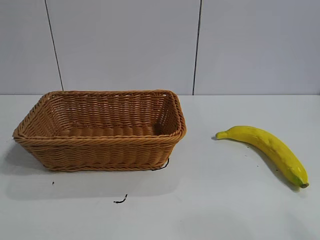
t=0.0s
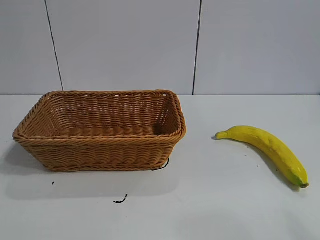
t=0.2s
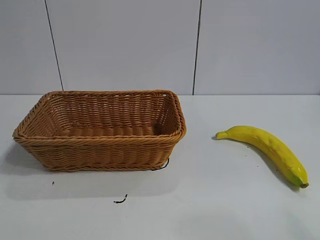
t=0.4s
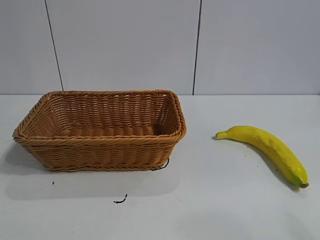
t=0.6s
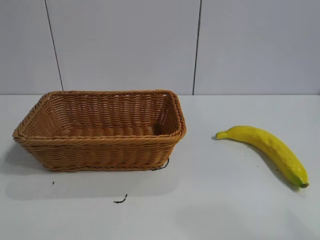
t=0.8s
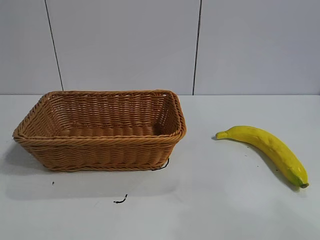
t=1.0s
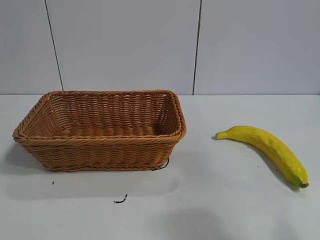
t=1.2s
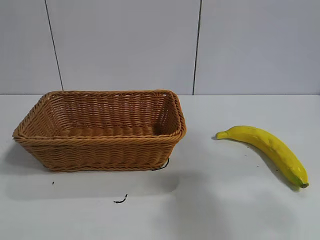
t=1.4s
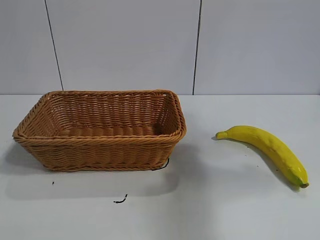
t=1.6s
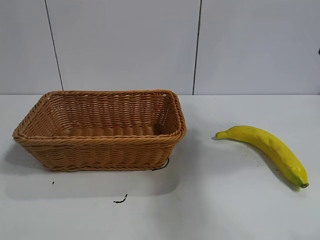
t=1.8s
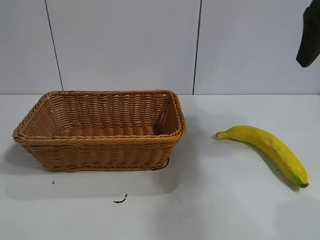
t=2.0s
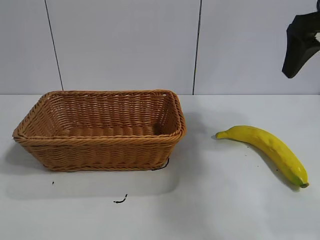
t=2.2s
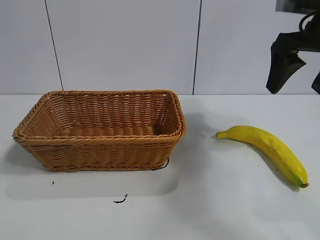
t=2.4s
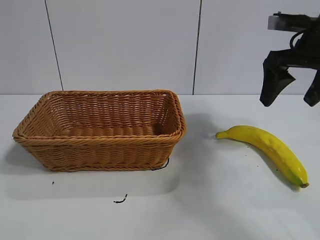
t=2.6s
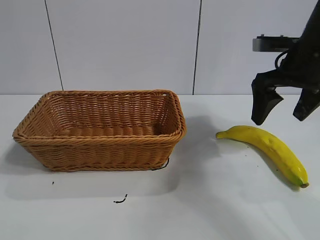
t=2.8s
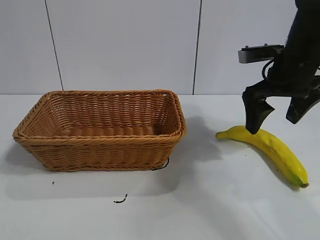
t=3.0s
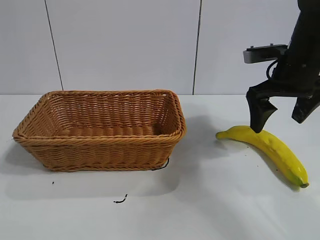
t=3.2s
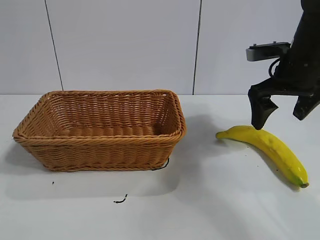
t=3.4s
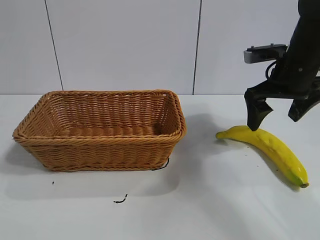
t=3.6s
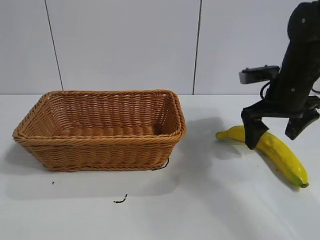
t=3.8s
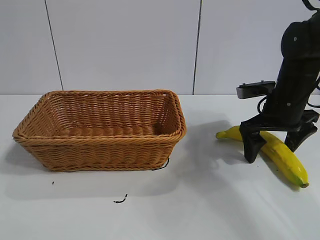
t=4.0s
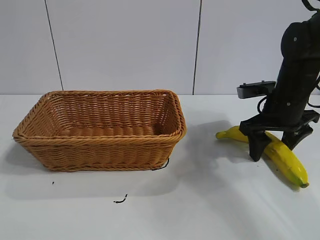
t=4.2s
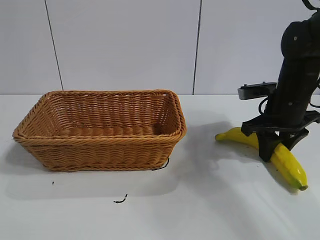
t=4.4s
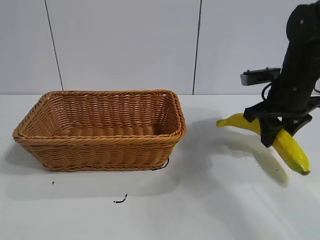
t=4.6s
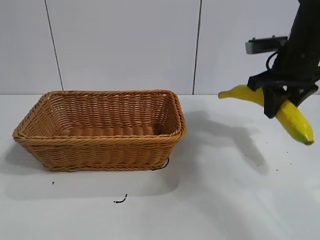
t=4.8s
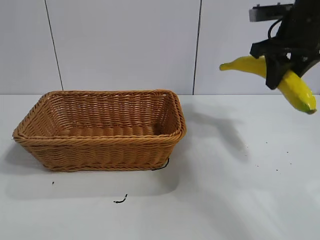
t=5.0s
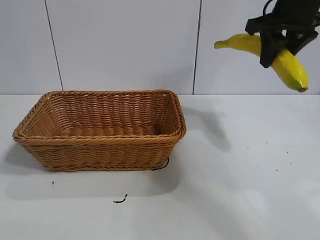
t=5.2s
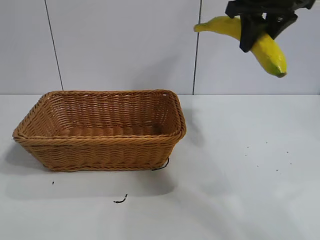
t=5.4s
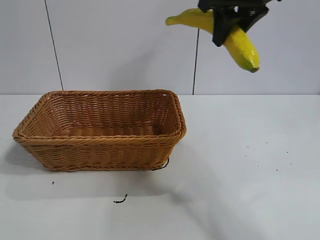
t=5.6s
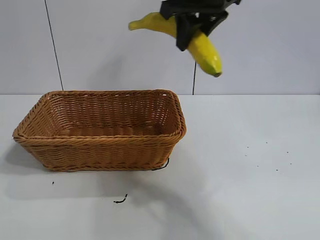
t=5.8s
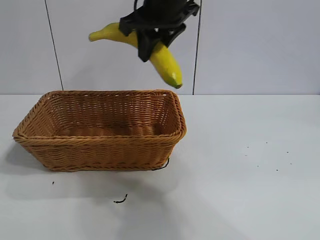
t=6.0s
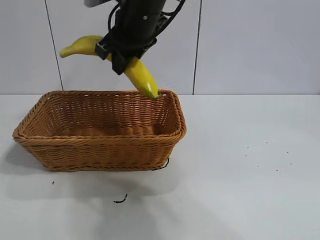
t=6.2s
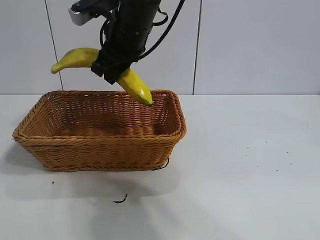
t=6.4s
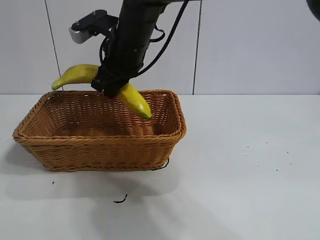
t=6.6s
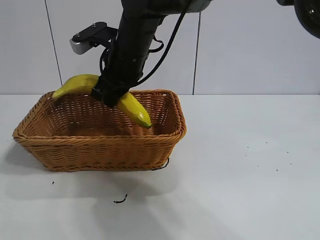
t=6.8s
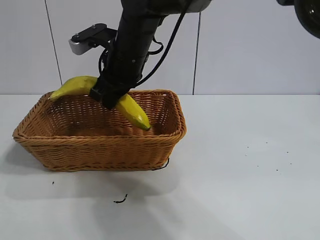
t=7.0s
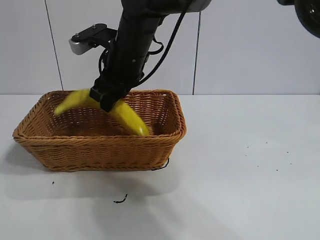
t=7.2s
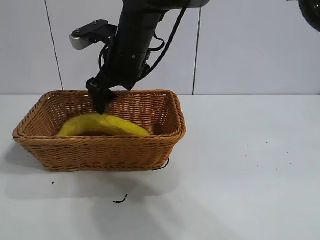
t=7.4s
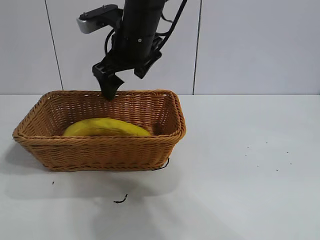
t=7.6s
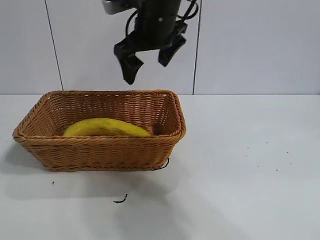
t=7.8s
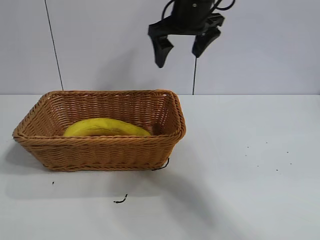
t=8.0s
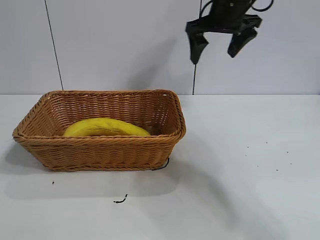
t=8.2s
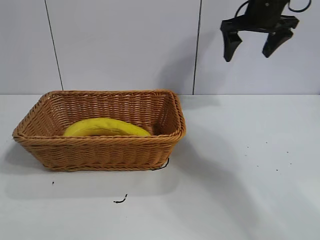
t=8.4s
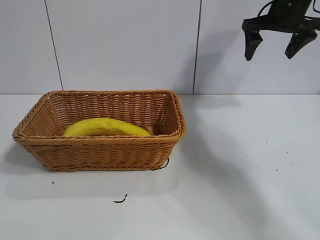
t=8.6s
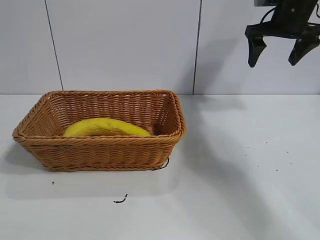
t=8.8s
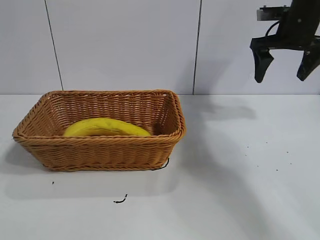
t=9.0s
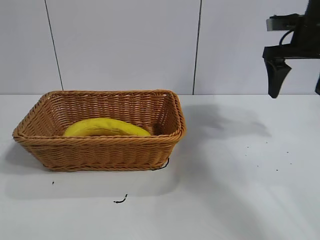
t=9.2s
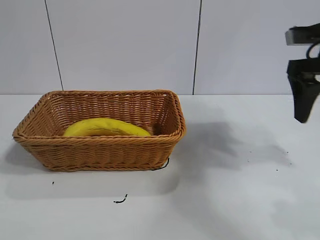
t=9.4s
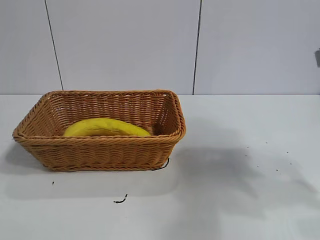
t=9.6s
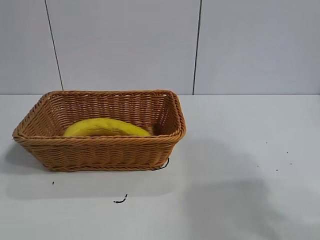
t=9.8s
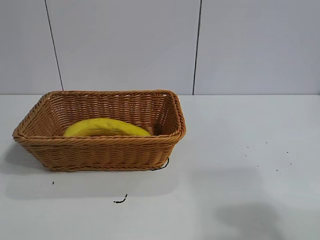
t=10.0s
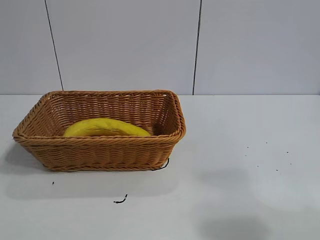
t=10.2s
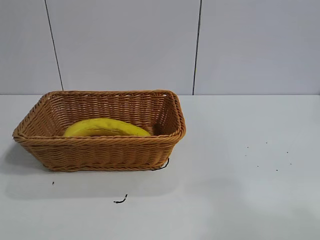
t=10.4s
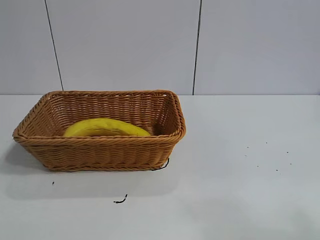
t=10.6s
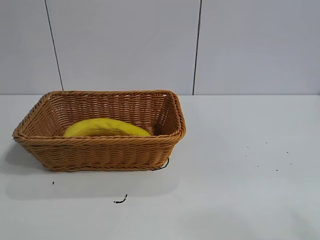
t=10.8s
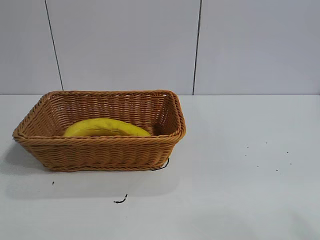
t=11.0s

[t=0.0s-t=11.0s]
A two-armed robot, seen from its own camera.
Task of the whole recording: pick up the banana and put it into the basket.
Step, t=2.0s to t=4.4s: Grasp the banana with right gripper.
Step, t=4.6s to t=7.4s: Place the banana in the basket with right gripper.
